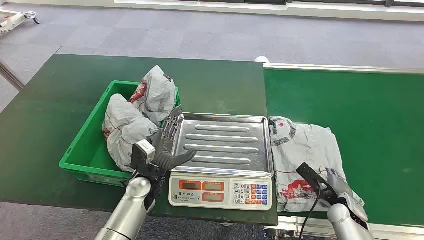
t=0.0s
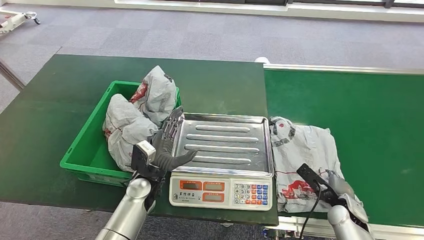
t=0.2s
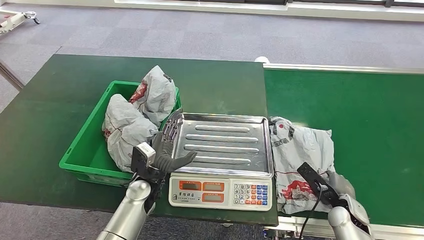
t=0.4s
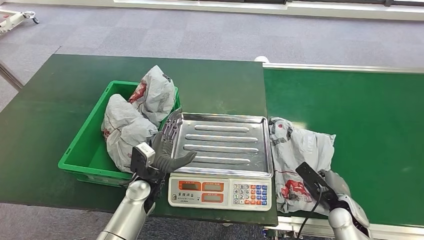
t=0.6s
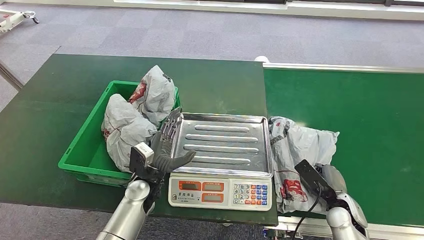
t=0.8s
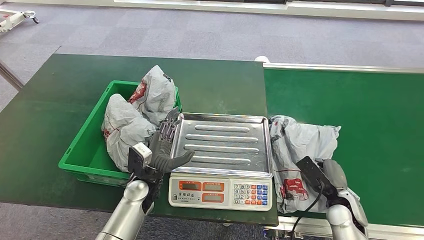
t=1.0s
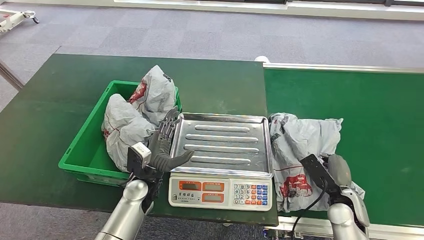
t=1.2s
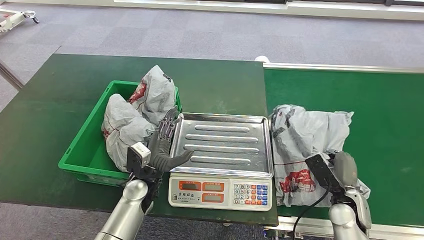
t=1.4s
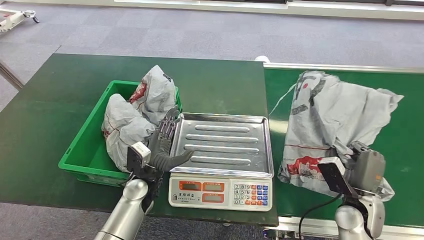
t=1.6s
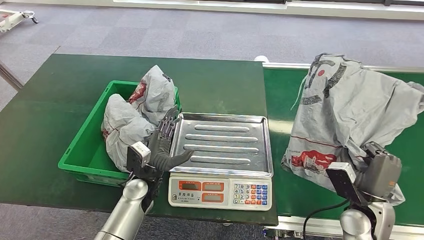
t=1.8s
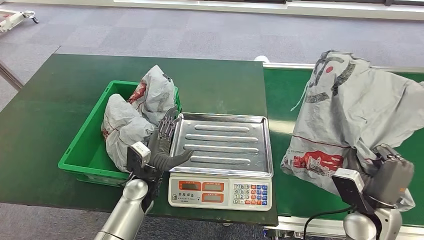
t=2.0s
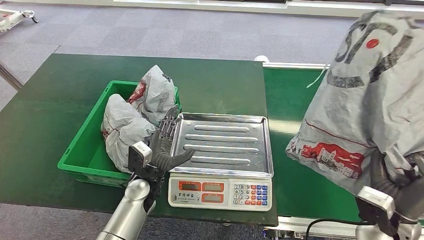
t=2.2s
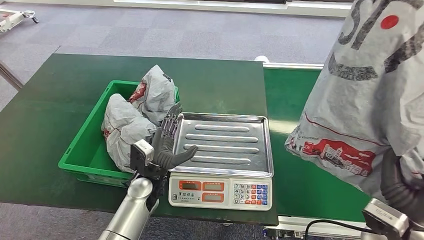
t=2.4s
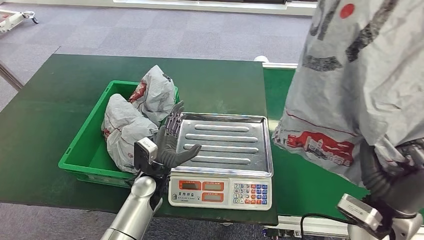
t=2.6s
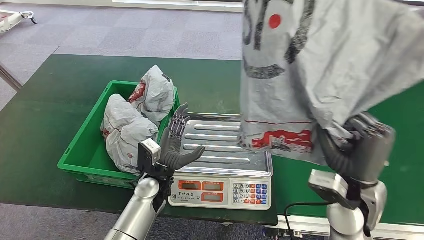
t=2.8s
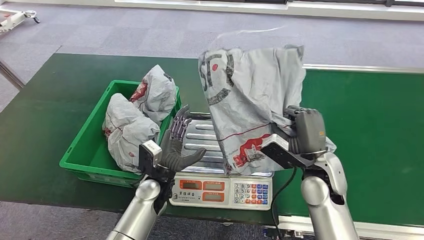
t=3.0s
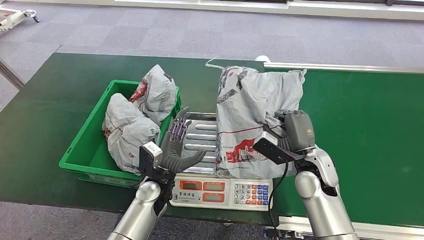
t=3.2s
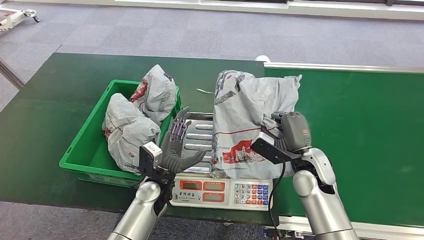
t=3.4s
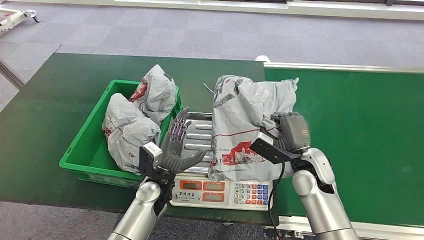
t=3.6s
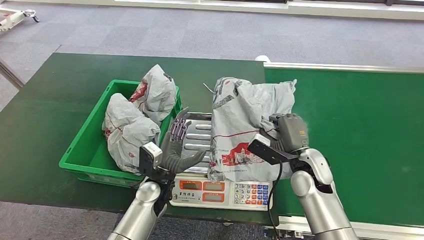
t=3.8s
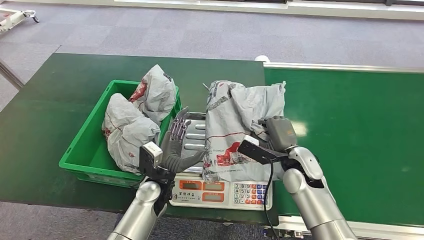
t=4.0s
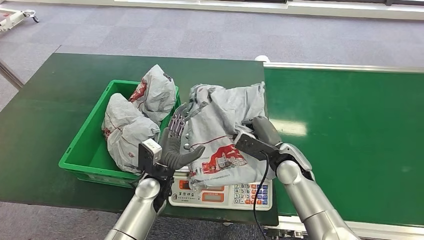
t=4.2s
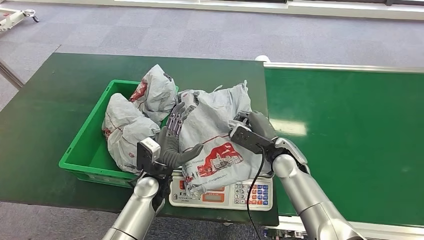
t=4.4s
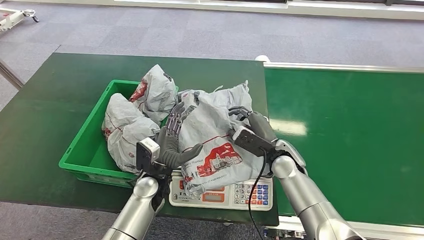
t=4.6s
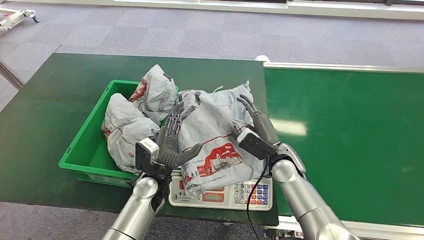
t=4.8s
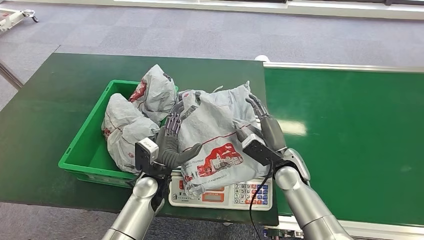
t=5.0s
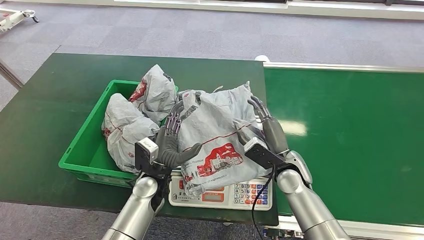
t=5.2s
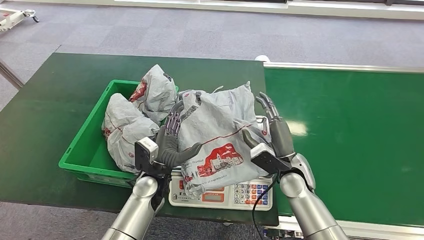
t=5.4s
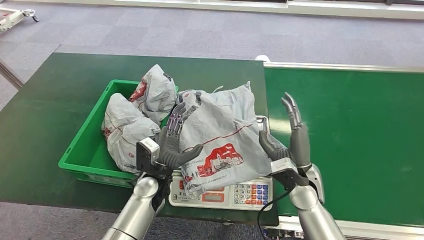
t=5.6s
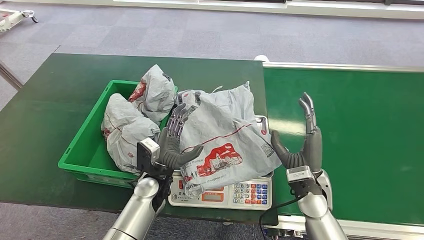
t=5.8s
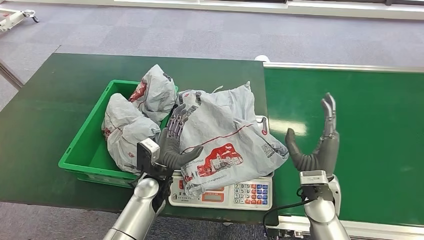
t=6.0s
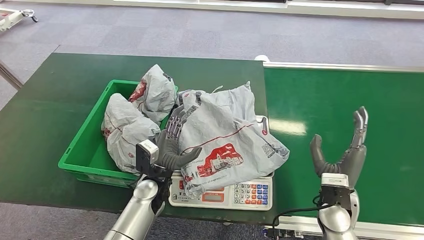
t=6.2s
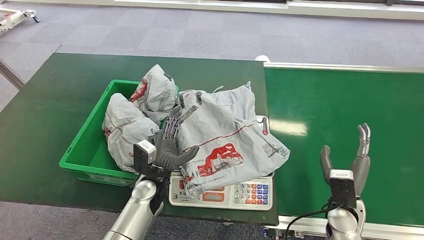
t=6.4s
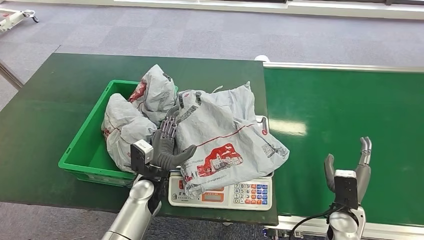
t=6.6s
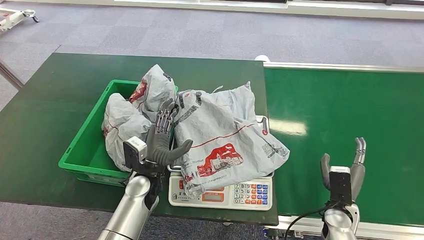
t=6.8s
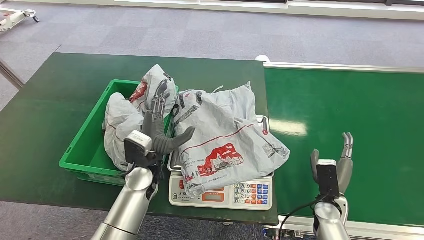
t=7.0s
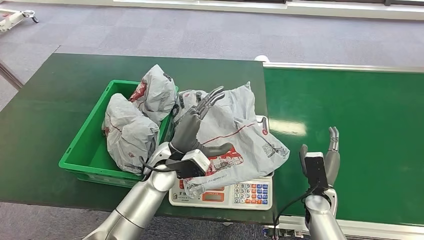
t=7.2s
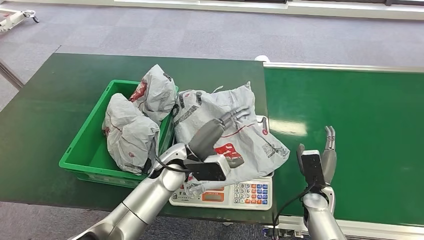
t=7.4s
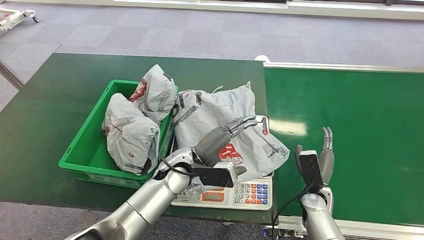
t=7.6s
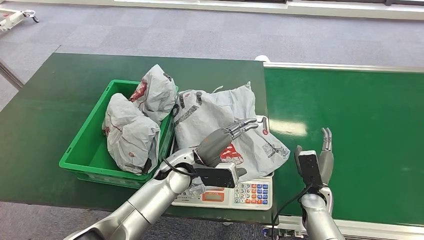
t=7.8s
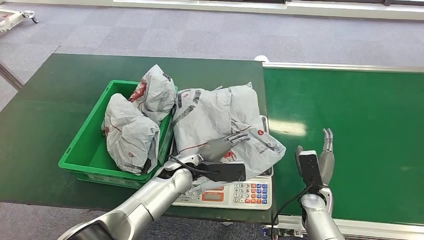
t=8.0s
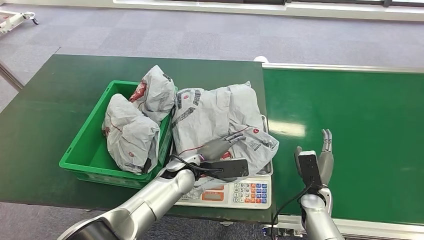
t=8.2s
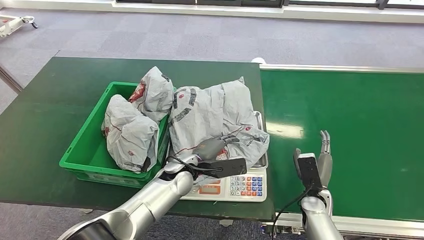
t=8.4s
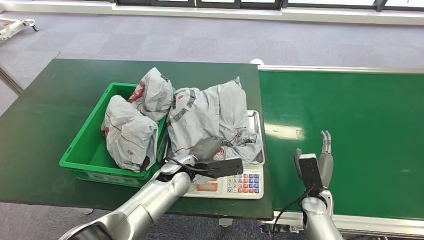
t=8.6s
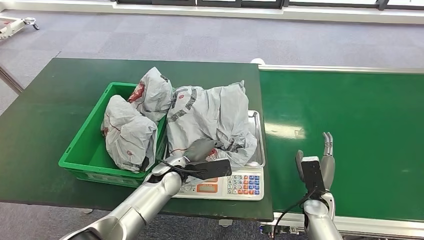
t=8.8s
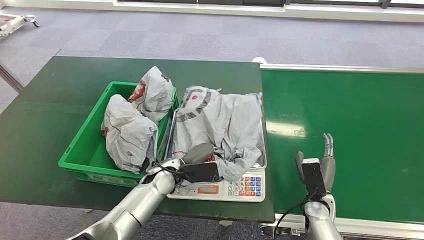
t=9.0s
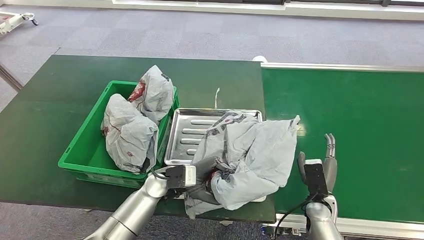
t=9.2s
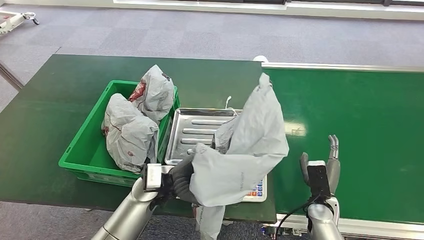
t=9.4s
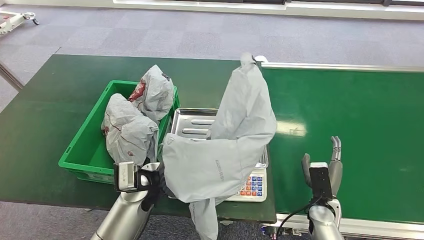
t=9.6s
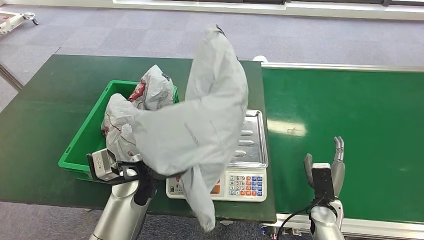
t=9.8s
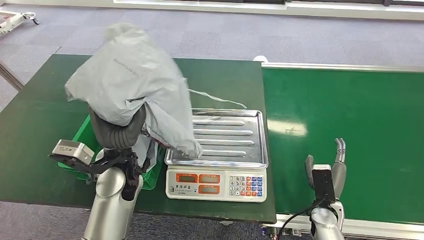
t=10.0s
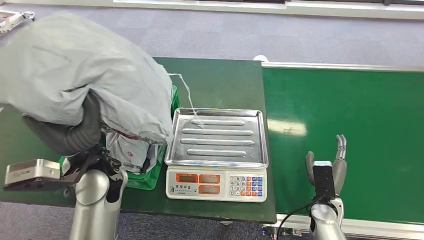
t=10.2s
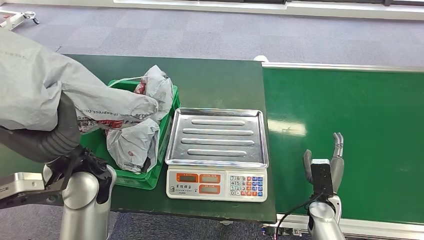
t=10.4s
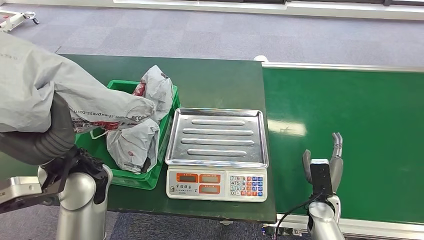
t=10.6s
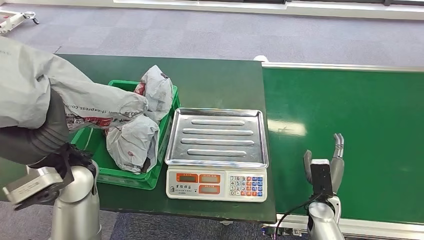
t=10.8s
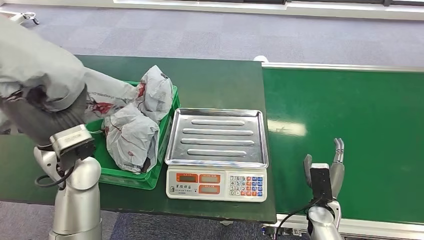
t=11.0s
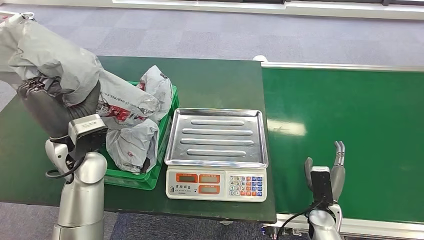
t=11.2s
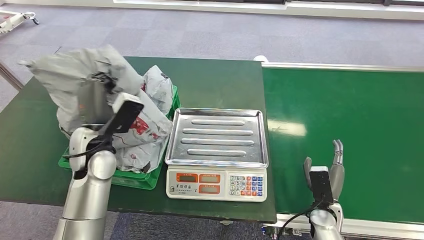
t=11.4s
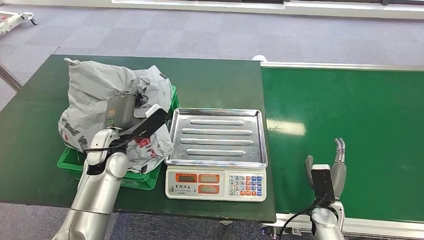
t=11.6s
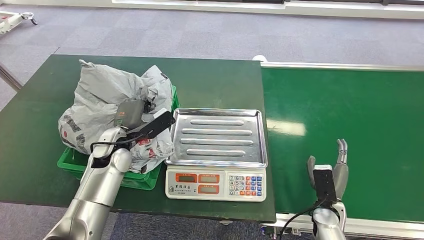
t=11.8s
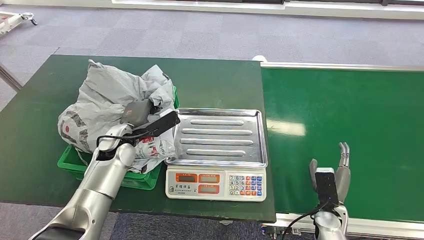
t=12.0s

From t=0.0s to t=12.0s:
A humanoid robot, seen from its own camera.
Step, from t=0.0s to t=2.0s: Pick up the package from the conveyor belt.
Step, from t=2.2s to t=6.6s: Place the package onto the inbound machine.
Step, from t=6.8s to t=10.0s: Pick up the package from the inbound machine.
From t=4.4s to t=6.0s: The right hand moves backward and to the right, about 10 cm.
From t=6.0s to t=7.6s: The left hand goes about 5 cm upward; the right hand goes about 10 cm downward.

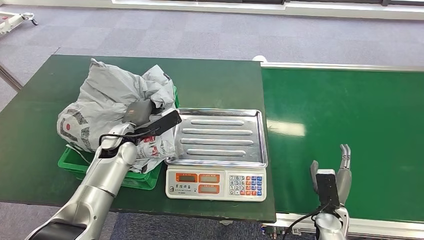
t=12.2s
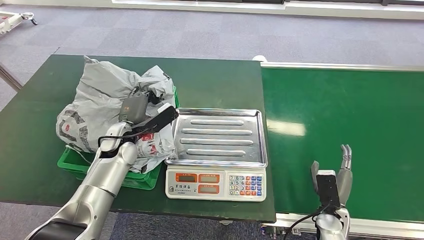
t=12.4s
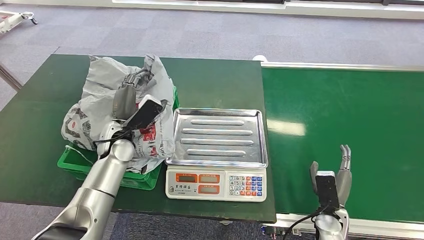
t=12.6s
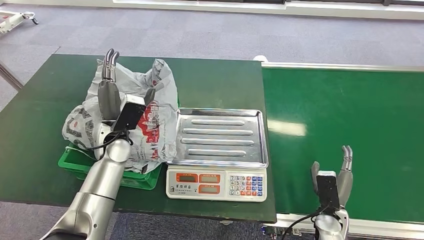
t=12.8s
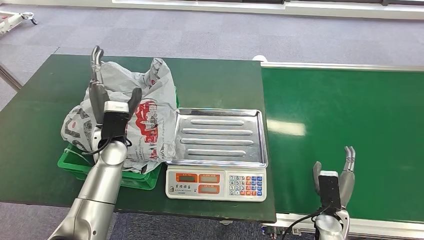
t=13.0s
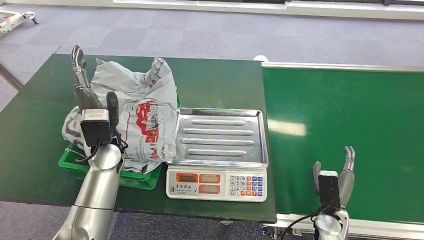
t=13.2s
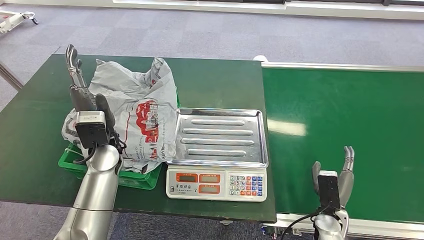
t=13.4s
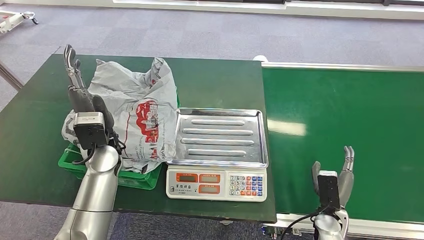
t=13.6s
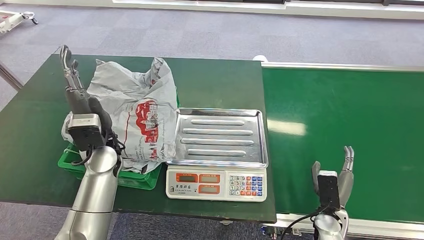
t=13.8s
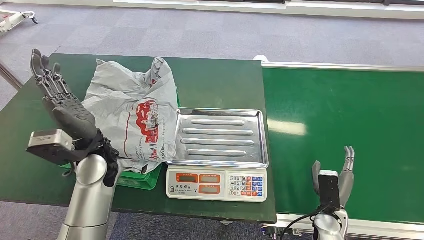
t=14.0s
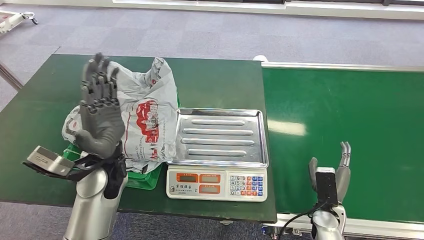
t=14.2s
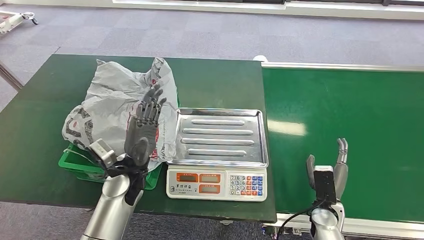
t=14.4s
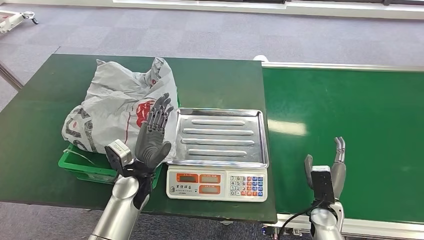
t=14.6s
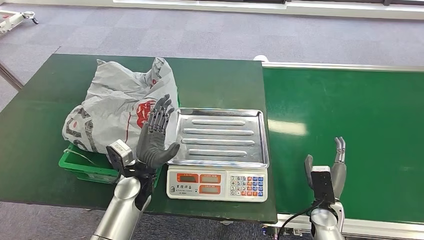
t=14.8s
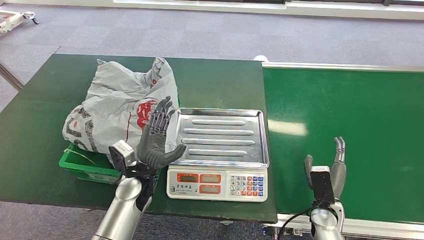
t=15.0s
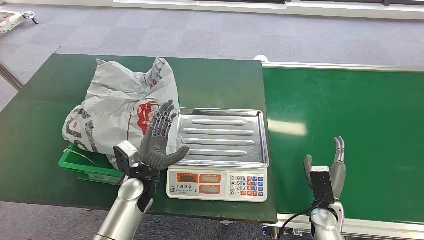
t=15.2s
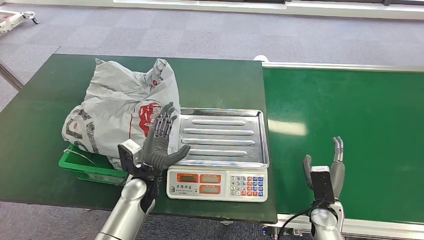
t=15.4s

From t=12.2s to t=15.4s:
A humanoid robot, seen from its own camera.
Step, from t=12.2s to t=15.4s: Place the package into the parcel locker.
From t=12.2s to t=13.8s: The left hand is displaced upward by some 5 cm.
From t=13.8s to t=15.4s: The left hand shifts about 15 cm downward, to the right and backward.

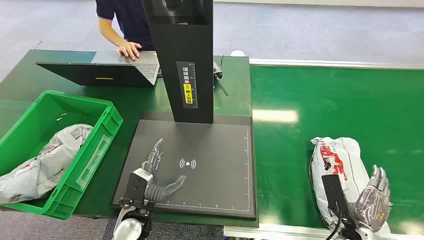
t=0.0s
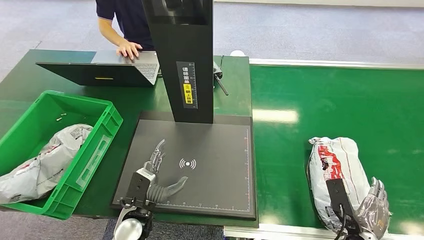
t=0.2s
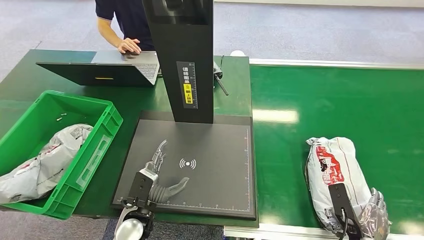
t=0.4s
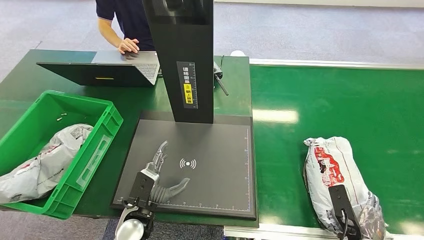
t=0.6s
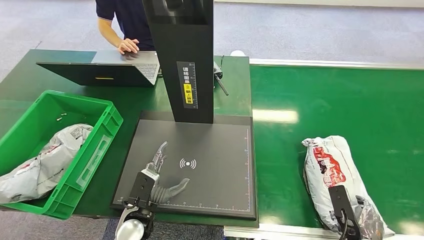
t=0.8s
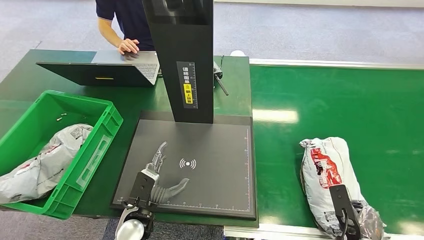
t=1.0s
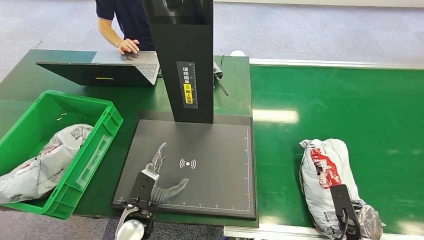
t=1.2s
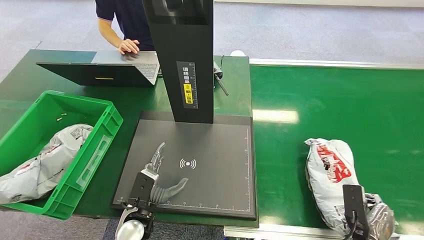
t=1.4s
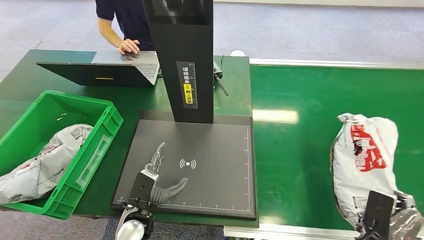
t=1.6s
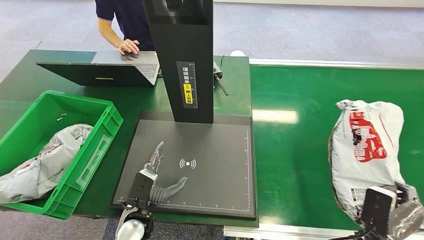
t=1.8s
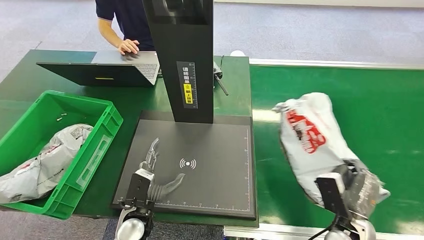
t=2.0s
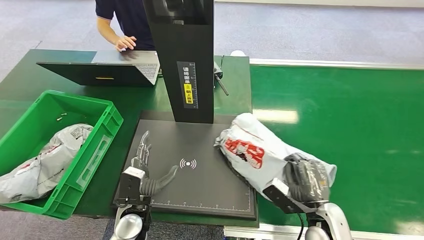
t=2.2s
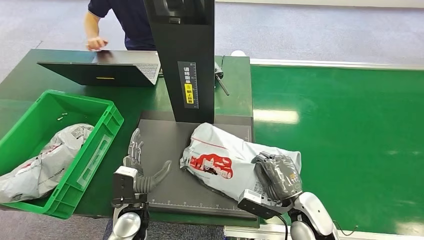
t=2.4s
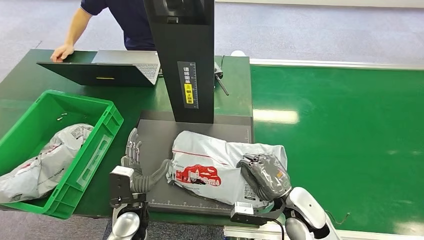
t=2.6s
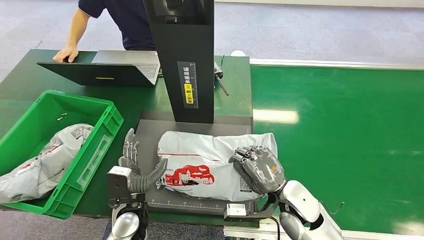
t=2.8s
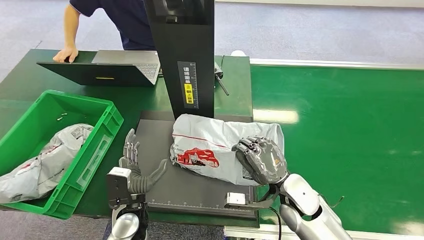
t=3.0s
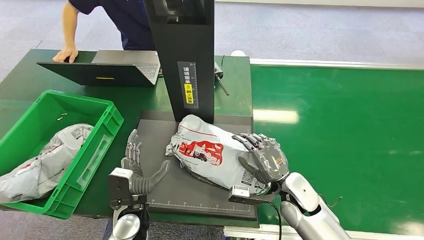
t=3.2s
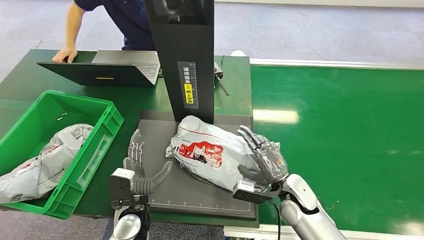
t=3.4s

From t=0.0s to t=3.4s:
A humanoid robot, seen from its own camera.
Step, from t=0.0s to t=1.6s: Pick up the package from the conveyor belt.
